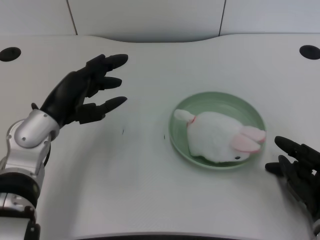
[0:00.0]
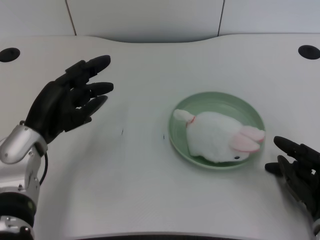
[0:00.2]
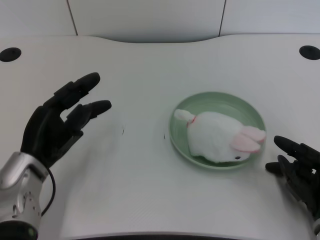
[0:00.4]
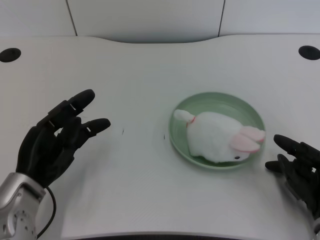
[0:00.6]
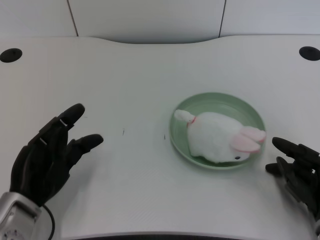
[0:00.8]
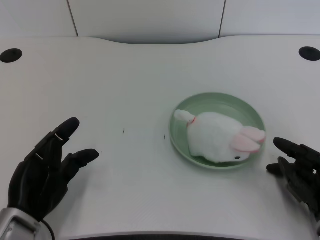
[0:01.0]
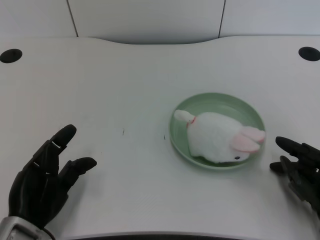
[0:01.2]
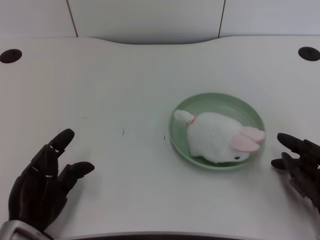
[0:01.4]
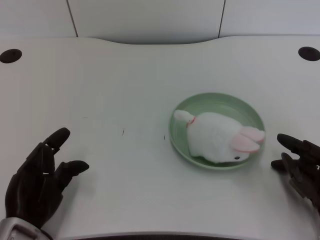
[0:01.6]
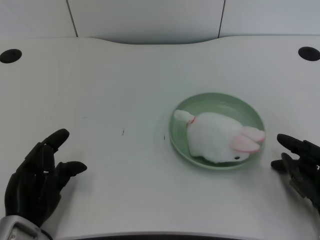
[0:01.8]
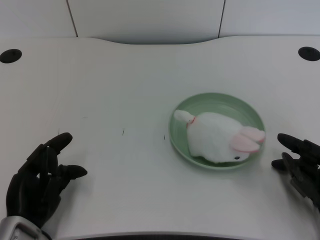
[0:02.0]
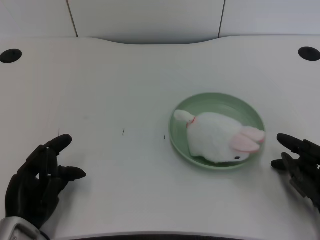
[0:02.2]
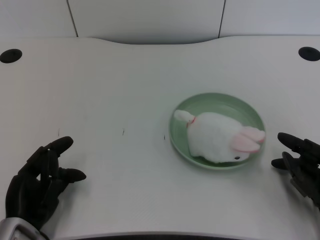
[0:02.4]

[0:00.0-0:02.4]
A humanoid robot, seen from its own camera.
Task of the whole recording: pick up the rabbit doll from the table and place it on the plate.
0:00.0 to 0:01.2: The left hand goes roughly 15 cm backward and downward.
0:01.2 to 0:02.4: There are only small adjustments of the hands.

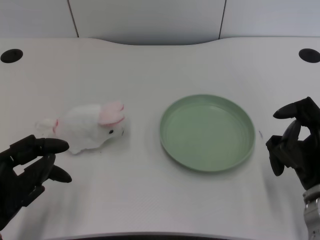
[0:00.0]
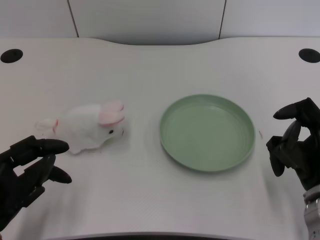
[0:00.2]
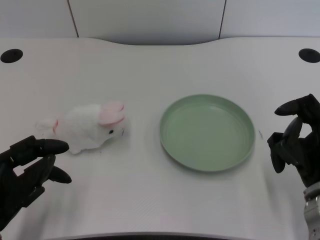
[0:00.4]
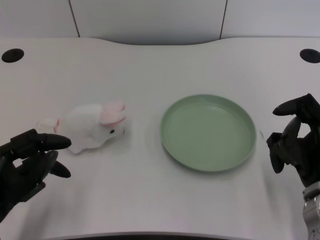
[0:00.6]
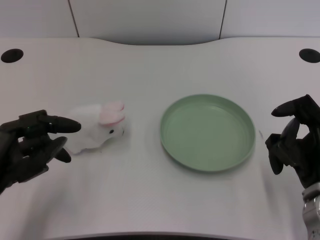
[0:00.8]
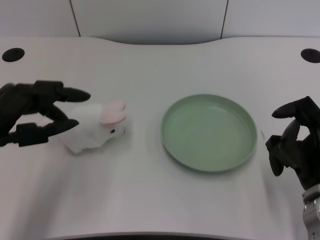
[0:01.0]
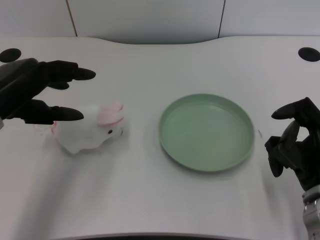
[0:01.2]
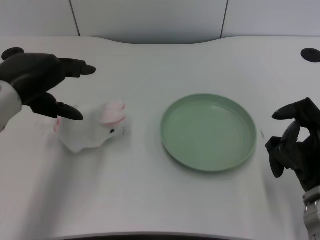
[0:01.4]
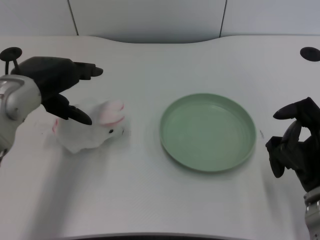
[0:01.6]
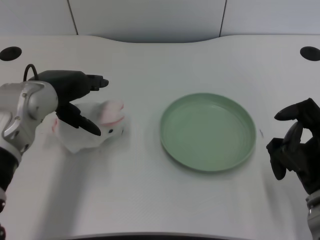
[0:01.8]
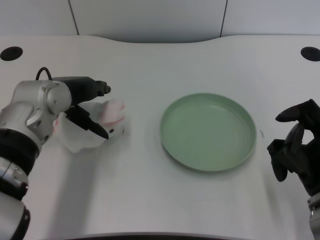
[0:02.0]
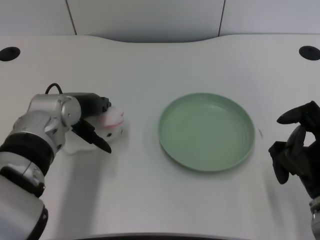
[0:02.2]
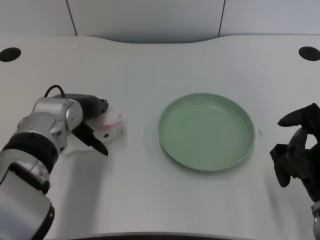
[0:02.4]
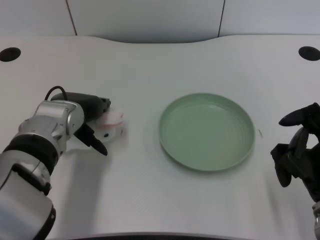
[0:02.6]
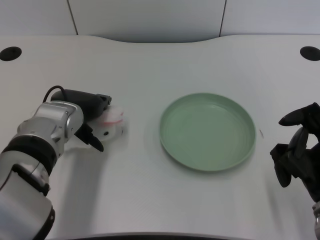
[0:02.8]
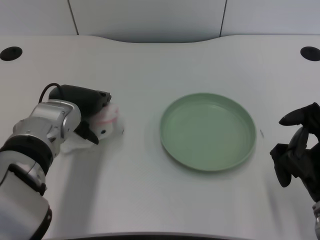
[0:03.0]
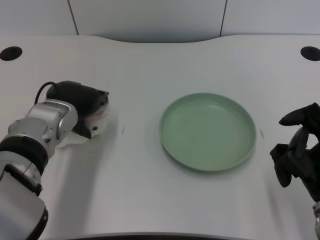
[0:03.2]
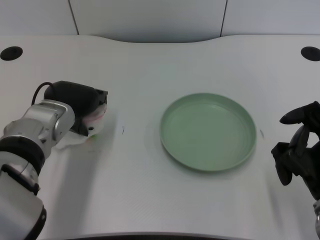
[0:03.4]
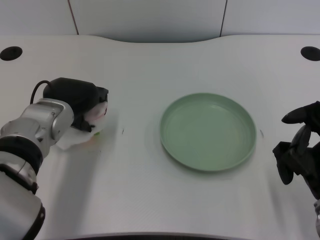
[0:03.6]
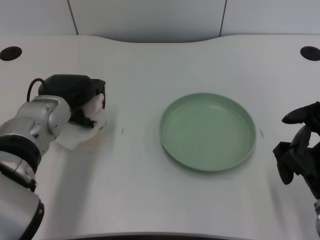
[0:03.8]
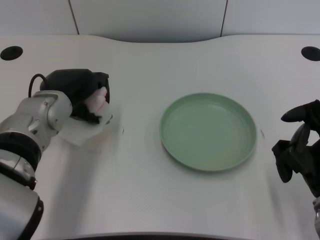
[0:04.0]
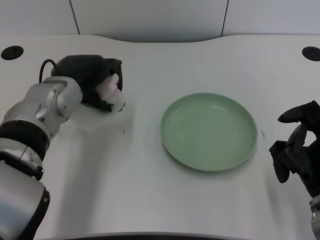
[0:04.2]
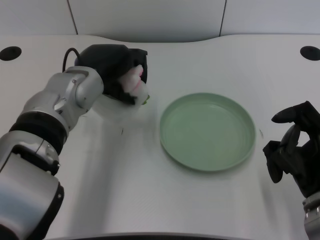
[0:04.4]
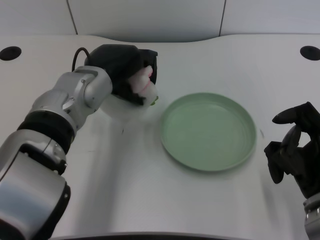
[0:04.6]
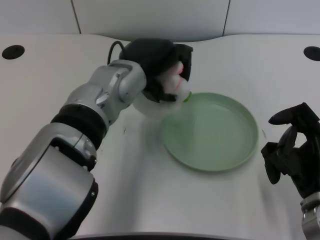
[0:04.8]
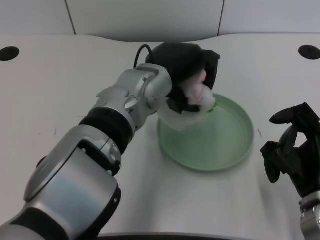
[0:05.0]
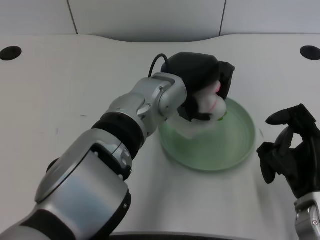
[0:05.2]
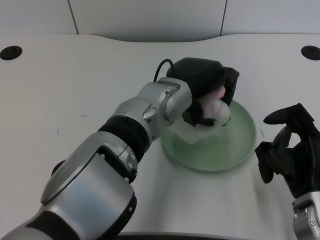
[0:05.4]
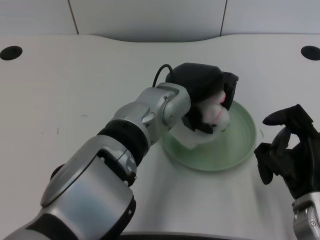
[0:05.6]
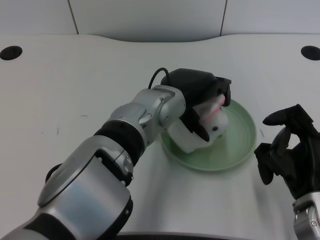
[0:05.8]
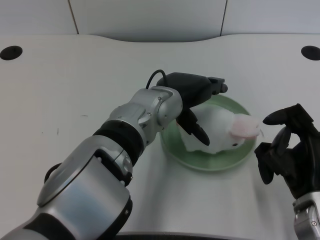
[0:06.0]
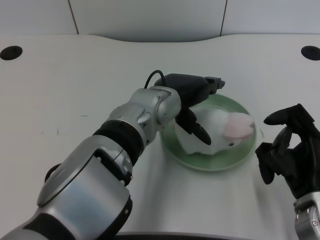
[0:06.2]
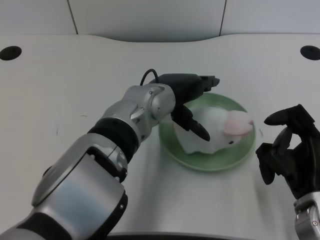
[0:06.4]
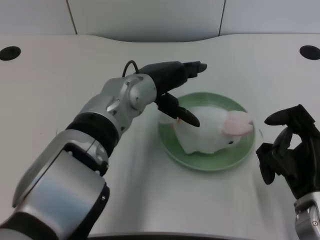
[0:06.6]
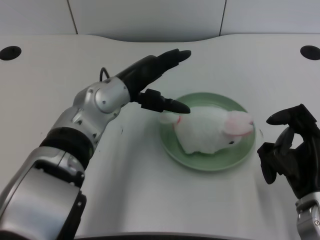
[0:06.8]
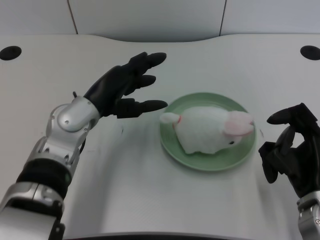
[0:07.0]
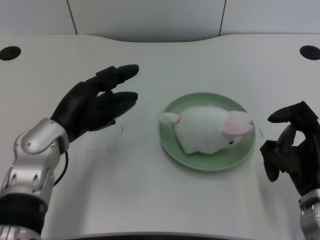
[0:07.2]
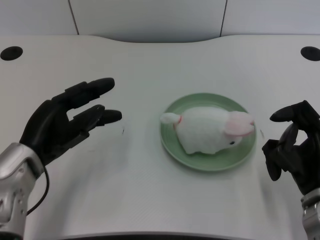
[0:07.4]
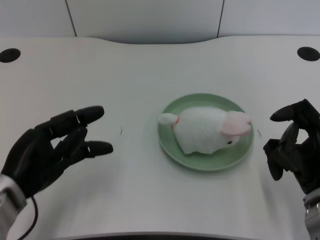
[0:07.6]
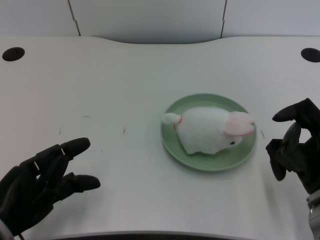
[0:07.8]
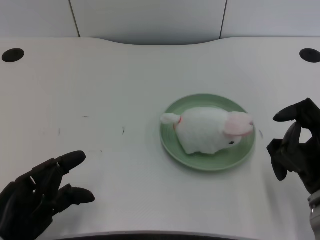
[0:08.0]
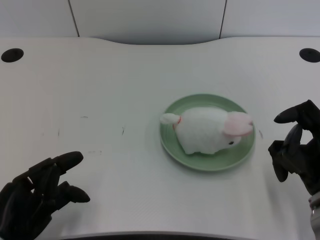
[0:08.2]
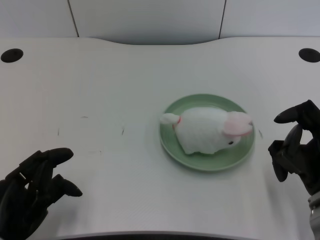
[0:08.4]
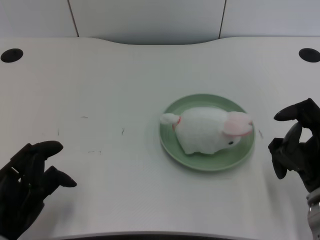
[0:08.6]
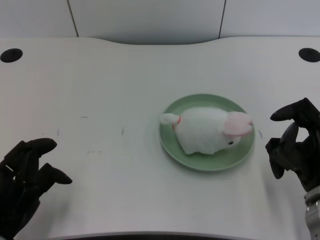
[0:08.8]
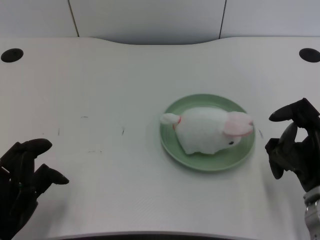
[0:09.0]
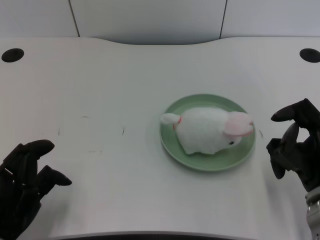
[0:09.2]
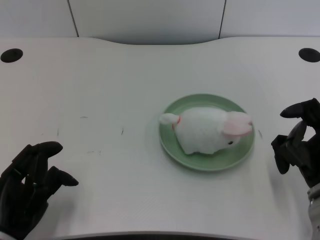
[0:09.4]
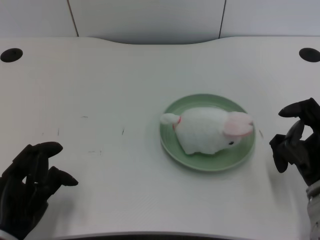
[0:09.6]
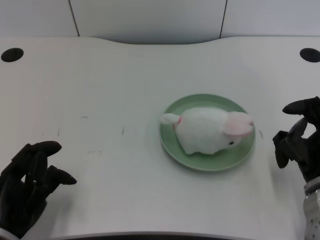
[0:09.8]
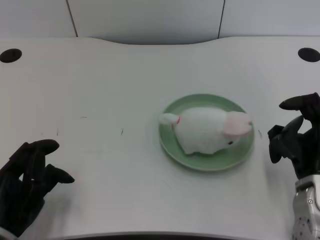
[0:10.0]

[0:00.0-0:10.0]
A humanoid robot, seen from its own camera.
Task of the whole recording: pick up the rabbit doll from the table and place it on the plate.
Step, 0:00.8 to 0:03.8: Grasp the rabbit doll with the left gripper.
Step, 0:04.2 to 0:06.4: Place the rabbit doll into the plate with the left gripper.
0:01.4 to 0:02.8: The left hand heads downward and to the right, covering about 10 cm.
0:04.2 to 0:05.8: The left hand travels to the right by approximately 15 cm.
0:05.8 to 0:07.2: The left hand heads to the left, covering about 20 cm.
0:07.2 to 0:08.6: The left hand travels backward and to the left by approximately 15 cm.
0:08.6 to 0:10.0: There are only small adjustments of the hands.

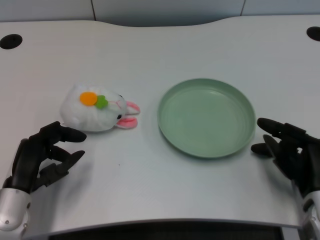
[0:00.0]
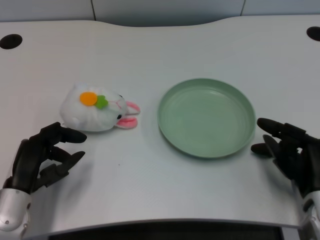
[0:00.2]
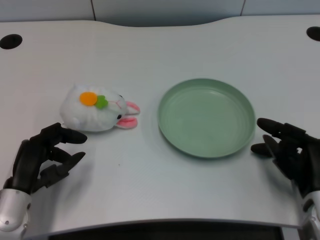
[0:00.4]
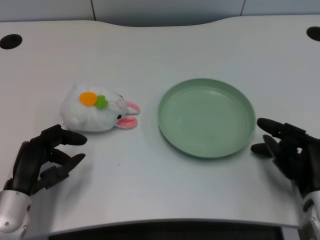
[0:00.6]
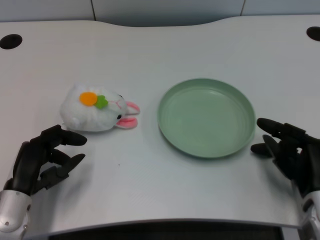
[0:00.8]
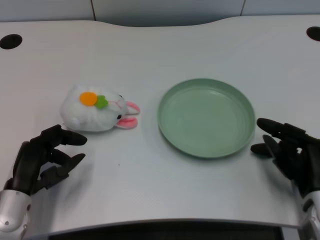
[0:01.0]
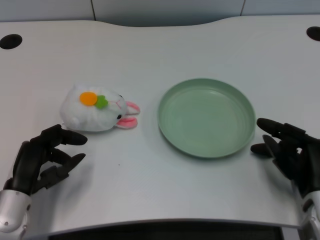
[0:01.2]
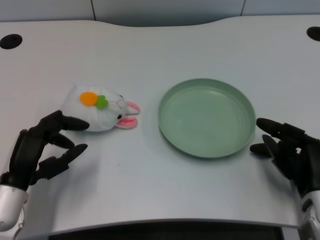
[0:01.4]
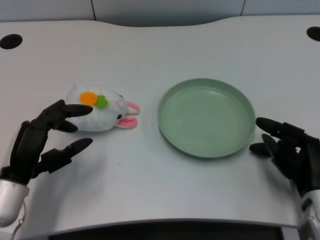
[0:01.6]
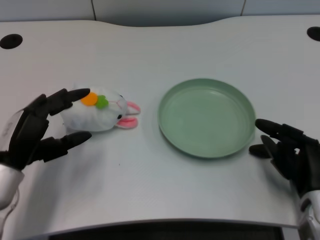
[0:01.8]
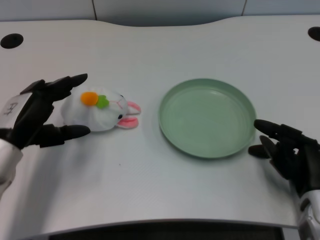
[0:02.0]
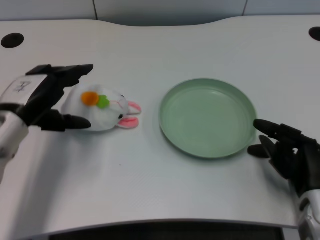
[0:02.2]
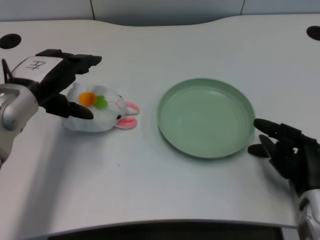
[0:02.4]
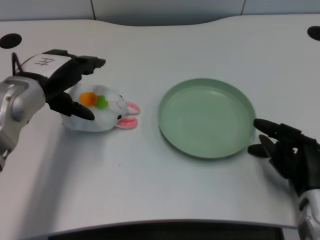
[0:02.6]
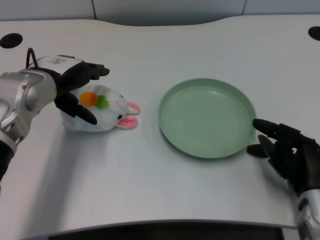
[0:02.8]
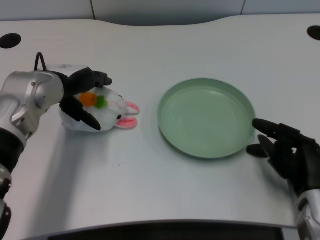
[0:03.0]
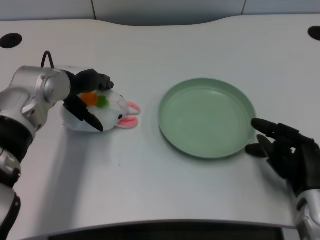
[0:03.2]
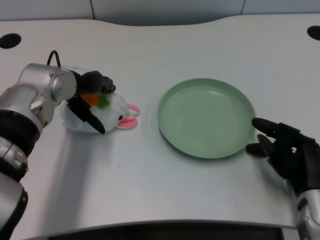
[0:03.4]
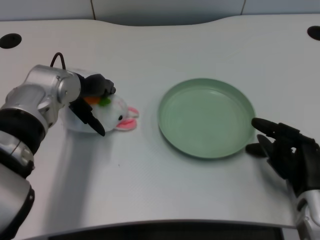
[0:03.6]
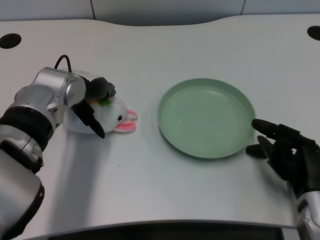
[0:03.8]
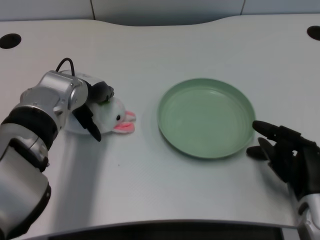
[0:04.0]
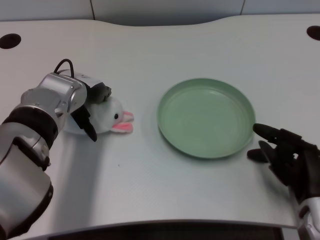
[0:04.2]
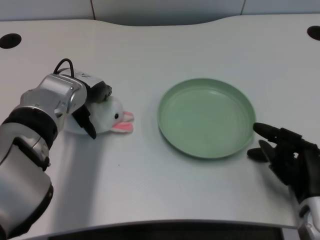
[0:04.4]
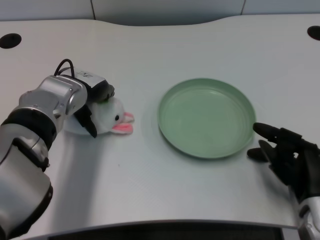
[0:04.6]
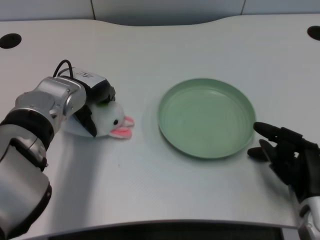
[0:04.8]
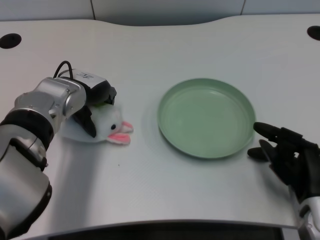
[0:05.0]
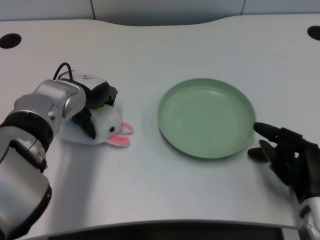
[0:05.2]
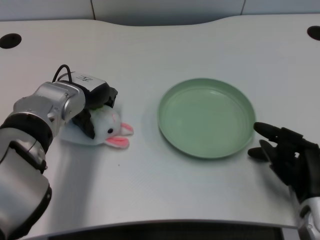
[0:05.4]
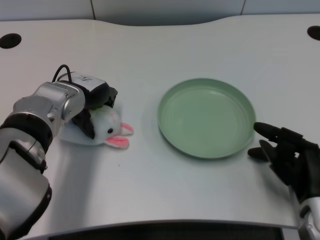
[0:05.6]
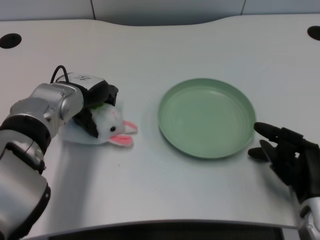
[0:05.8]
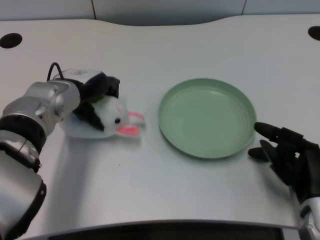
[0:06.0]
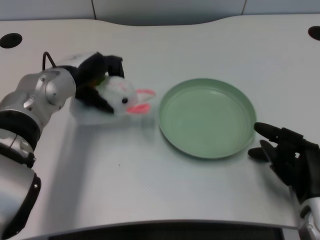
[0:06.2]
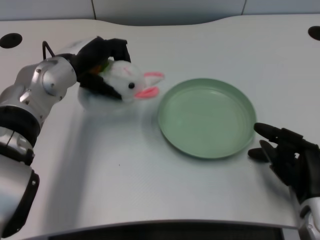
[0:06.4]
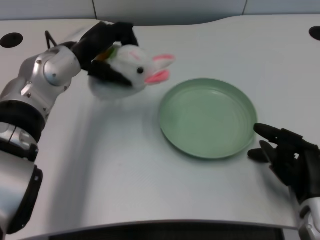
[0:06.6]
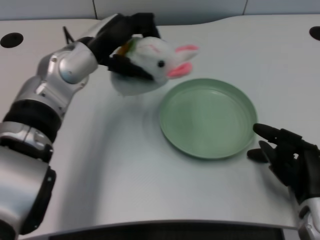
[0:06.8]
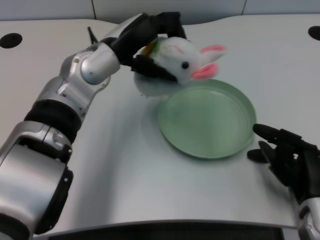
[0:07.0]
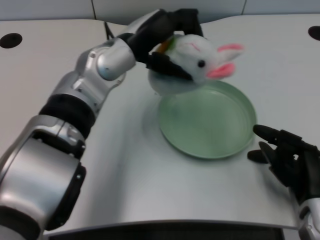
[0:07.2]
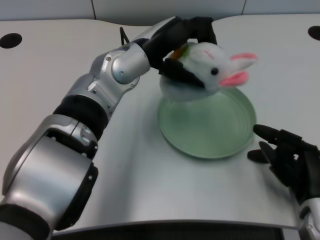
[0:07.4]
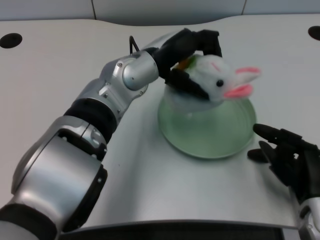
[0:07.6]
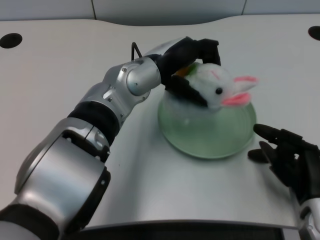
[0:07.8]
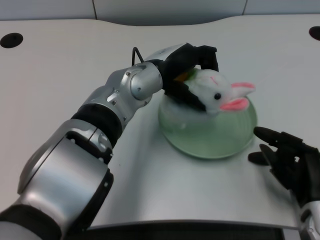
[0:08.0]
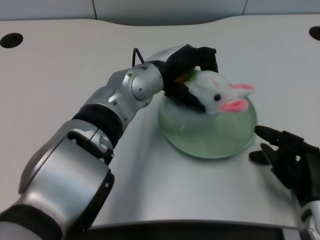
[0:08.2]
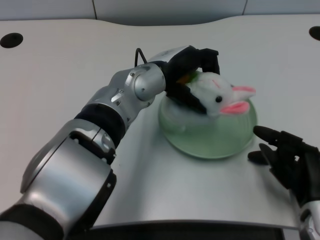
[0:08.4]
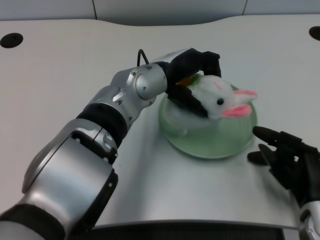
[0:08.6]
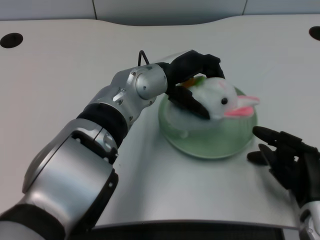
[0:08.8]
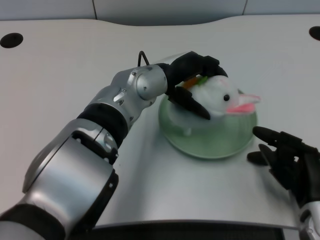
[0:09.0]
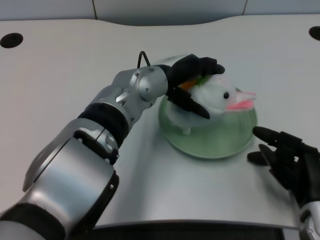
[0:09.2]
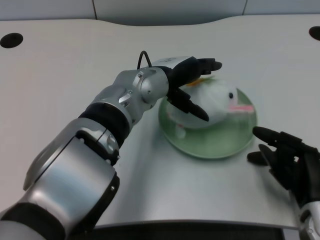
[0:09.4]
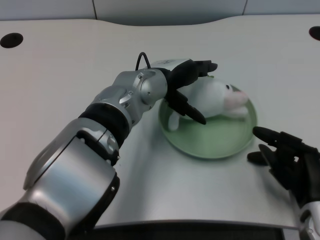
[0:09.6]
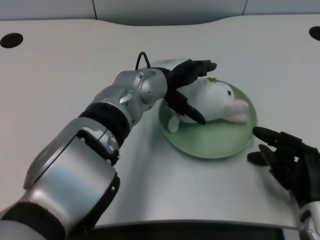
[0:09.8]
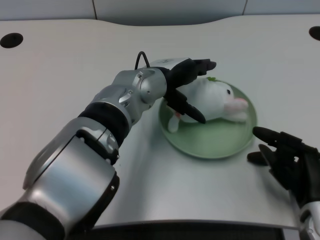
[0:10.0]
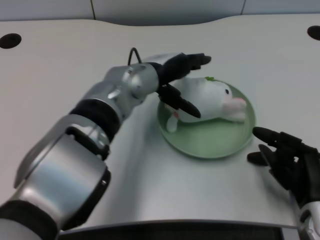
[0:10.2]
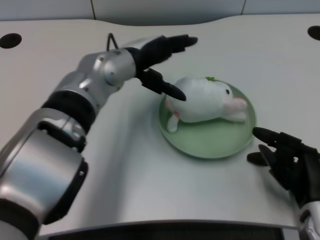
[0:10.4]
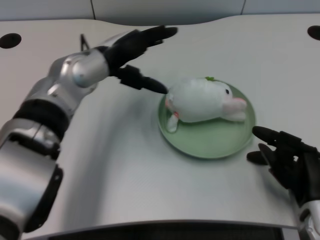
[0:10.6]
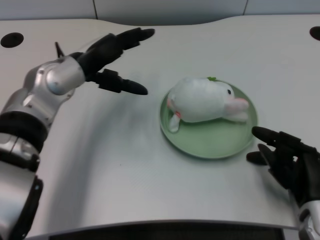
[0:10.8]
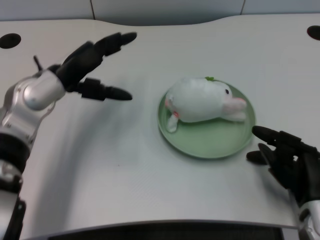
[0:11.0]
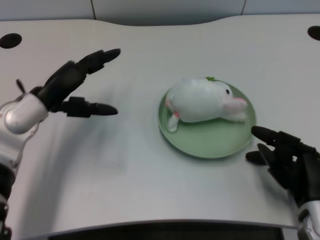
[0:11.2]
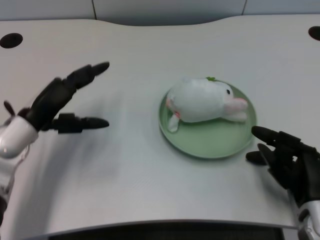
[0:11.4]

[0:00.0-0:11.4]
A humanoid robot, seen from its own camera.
Task of the whole recording: pick up the rabbit doll from the table and place it on the plate.
Step, 0:01.2 to 0:06.0: Grasp the rabbit doll with the left gripper.
Step, 0:06.2 to 0:09.8: Place the rabbit doll into the plate with the left gripper.
0:01.4 to 0:02.8: The left hand moves forward and upward, some 15 cm.
0:02.8 to 0:04.2: The left hand shifts by roughly 5 cm.
0:04.2 to 0:05.6: The hands stay close to where they were, moving slightly.
0:05.6 to 0:07.2: The left hand shifts approximately 10 cm to the right and upward.
0:07.2 to 0:08.6: The left hand moves approximately 5 cm.
0:08.6 to 0:10.0: The hands move only a little.
0:10.0 to 0:11.4: The left hand shifts some 20 cm to the left.
